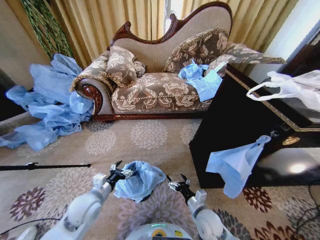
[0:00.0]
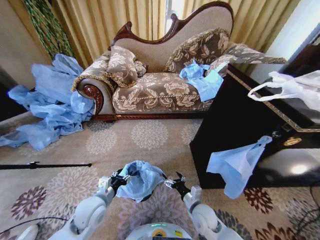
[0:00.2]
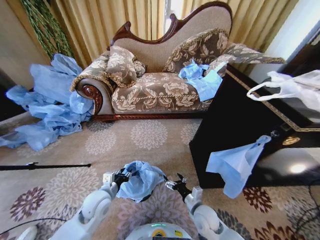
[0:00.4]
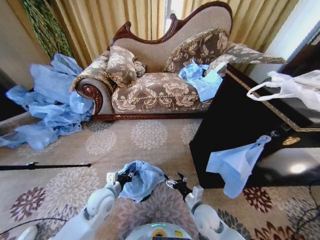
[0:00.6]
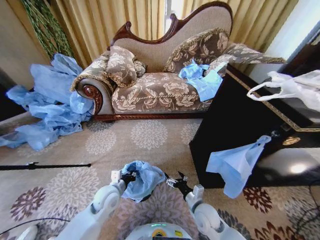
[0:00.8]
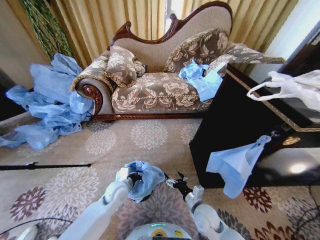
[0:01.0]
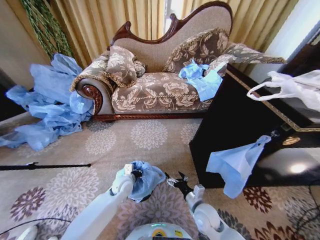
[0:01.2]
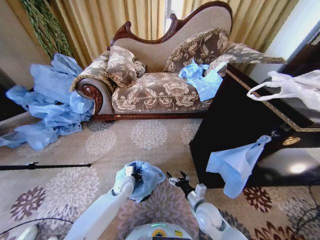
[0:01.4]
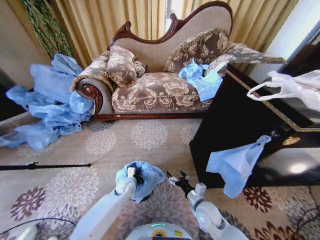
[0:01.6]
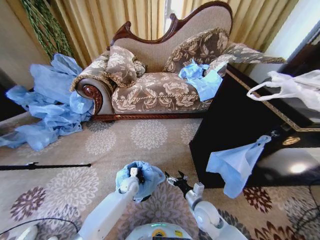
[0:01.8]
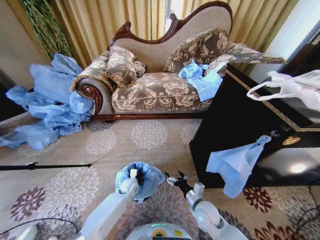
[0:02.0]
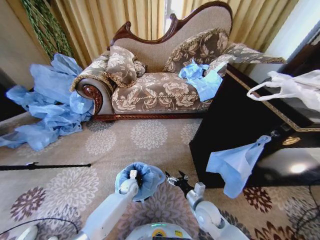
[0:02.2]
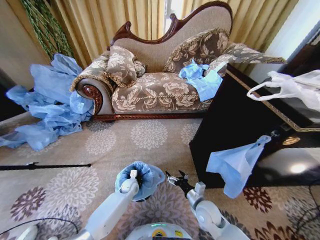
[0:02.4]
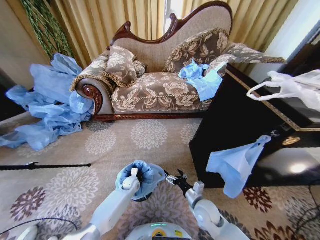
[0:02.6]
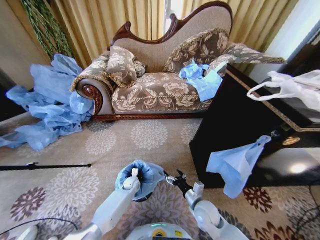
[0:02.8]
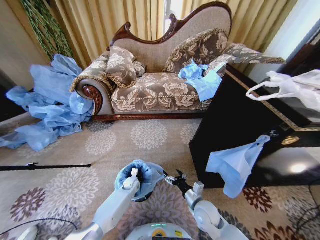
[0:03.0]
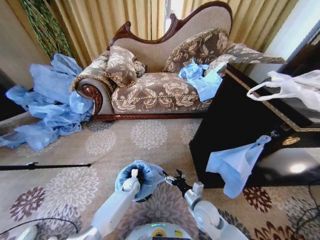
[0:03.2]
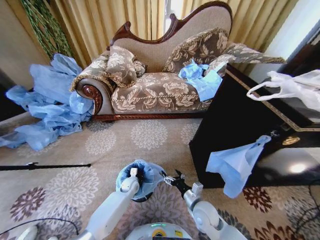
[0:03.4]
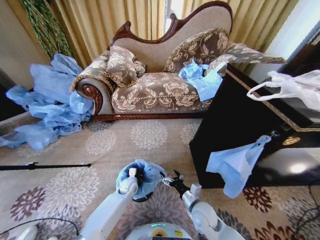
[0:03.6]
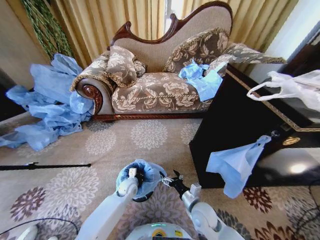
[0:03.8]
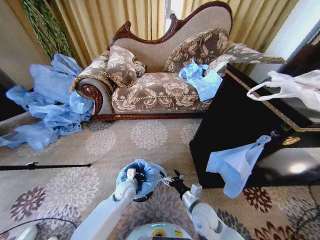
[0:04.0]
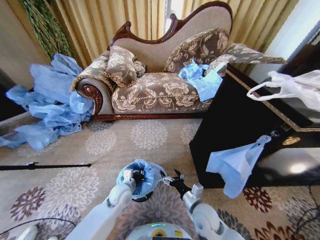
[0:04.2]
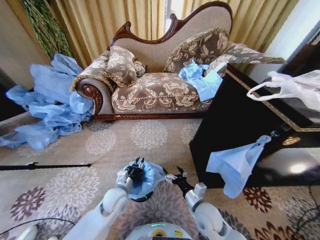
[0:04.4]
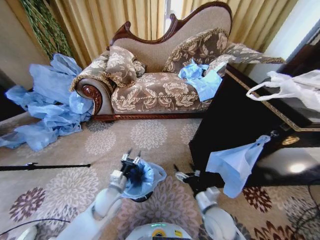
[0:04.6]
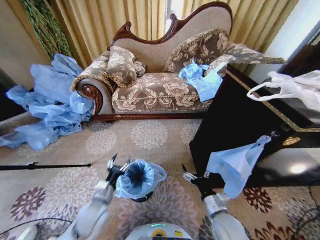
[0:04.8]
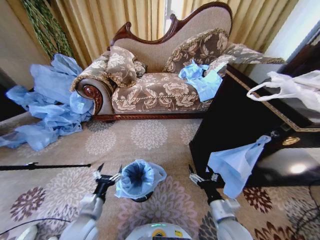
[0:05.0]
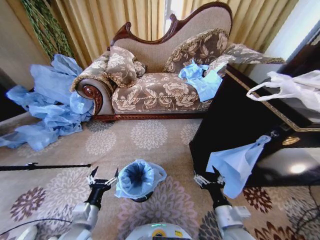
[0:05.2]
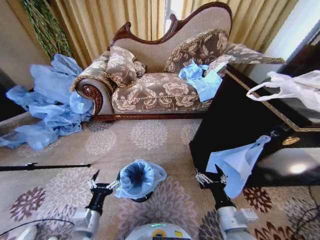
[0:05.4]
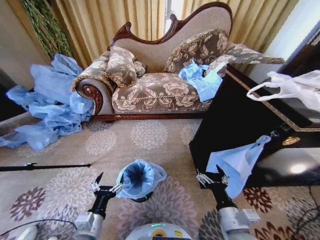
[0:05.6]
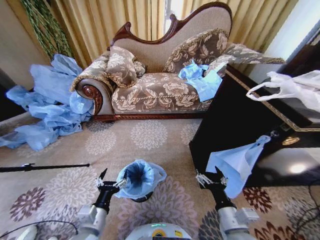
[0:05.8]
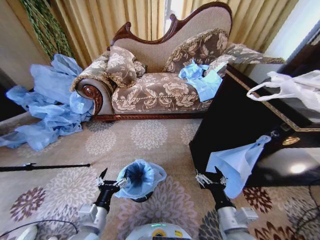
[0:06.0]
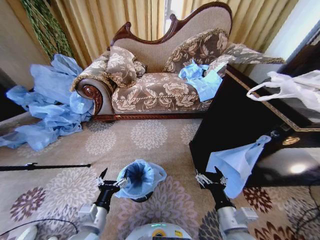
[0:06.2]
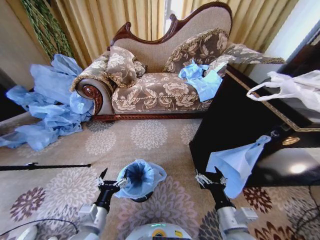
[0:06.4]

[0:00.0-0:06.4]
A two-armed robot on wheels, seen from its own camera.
Task of the whole recording: Place a garbage bag over the trash bin.
0:00.0 to 0:01.6: The left gripper moves downward, forward and to the right, roughly 20 cm, and closes its fingers.
0:01.6 to 0:03.2: The left gripper heads downward, covering some 10 cm.
0:03.2 to 0:04.8: The right gripper shifts by some 10 cm, while the left gripper travels upward and backward by approximately 25 cm, and opens up.
0:04.8 to 0:06.4: The left gripper moves backward, some 10 cm; the right gripper shifts roughly 10 cm backward and upward.
